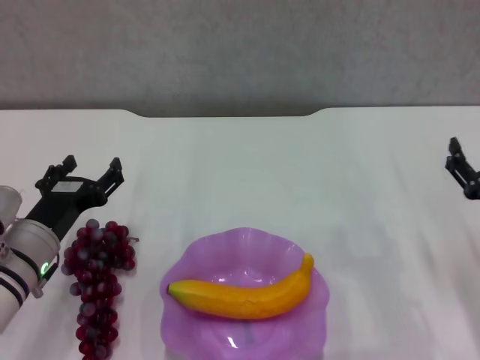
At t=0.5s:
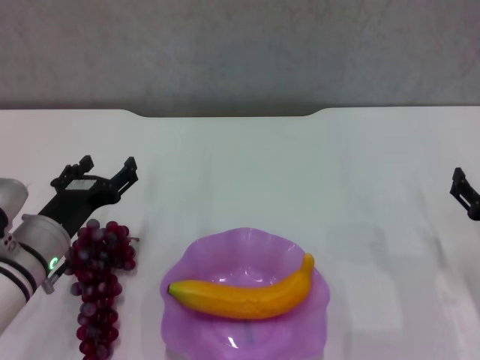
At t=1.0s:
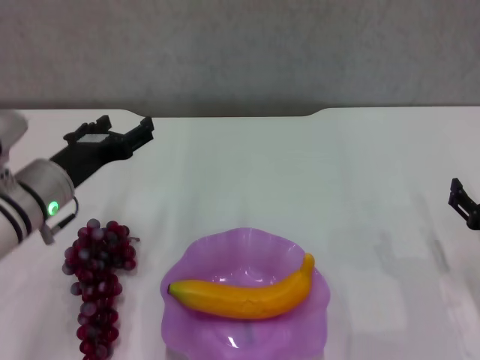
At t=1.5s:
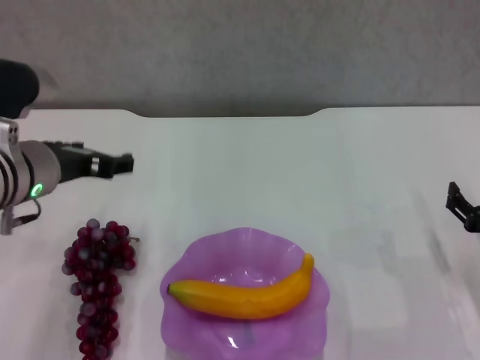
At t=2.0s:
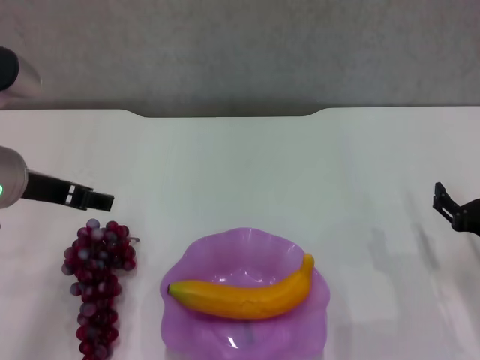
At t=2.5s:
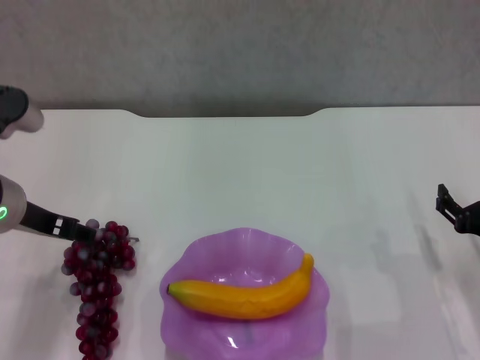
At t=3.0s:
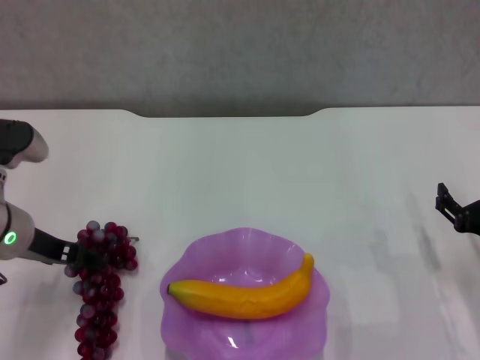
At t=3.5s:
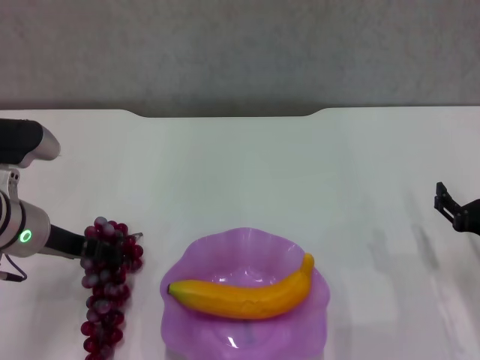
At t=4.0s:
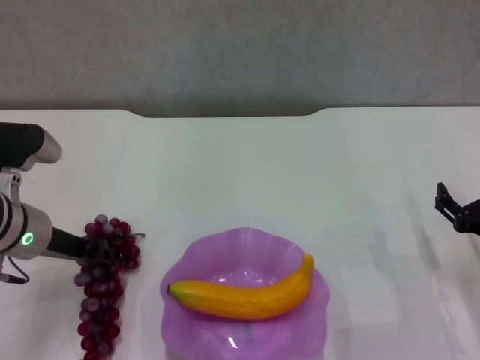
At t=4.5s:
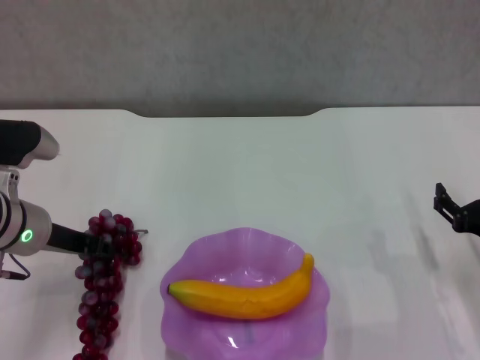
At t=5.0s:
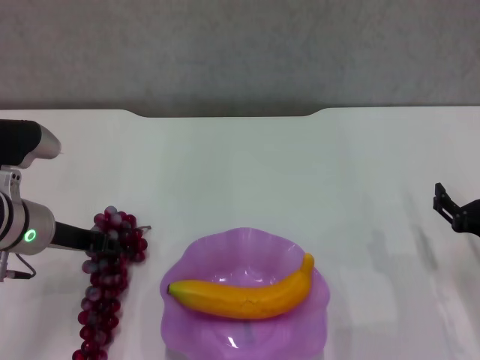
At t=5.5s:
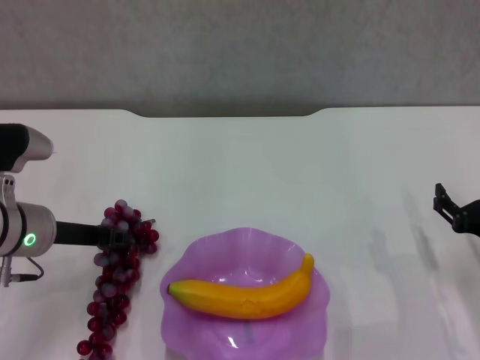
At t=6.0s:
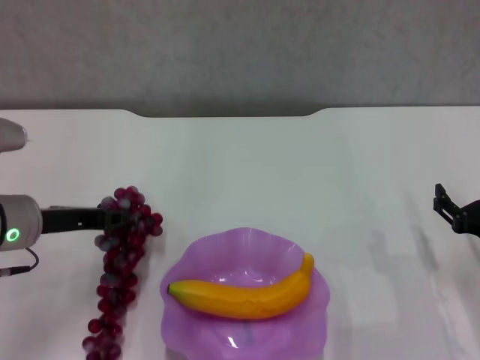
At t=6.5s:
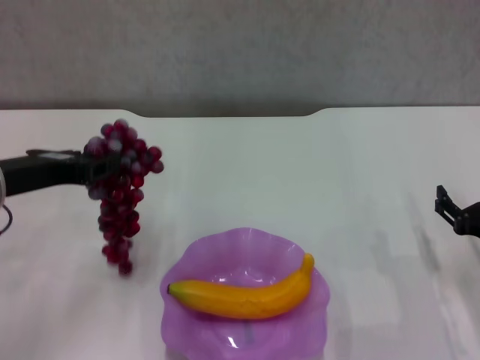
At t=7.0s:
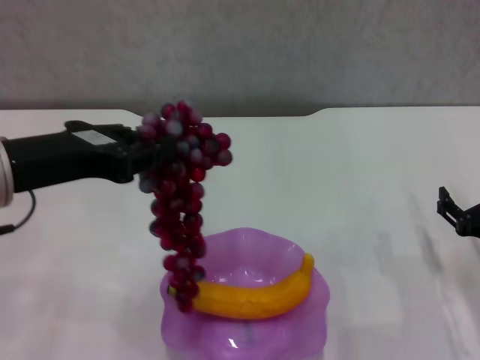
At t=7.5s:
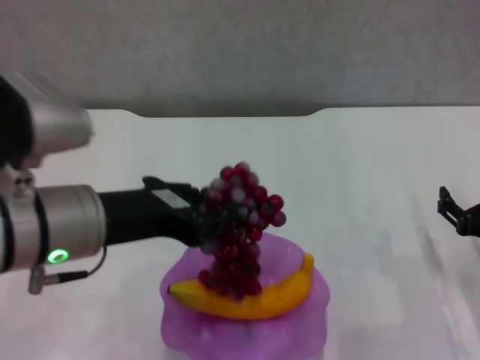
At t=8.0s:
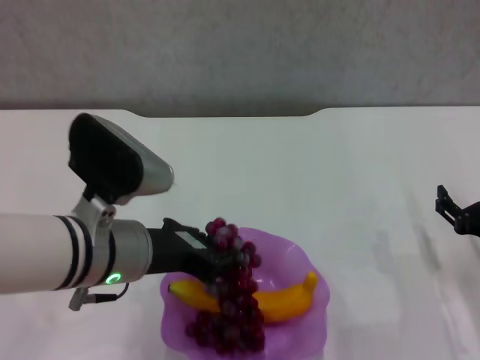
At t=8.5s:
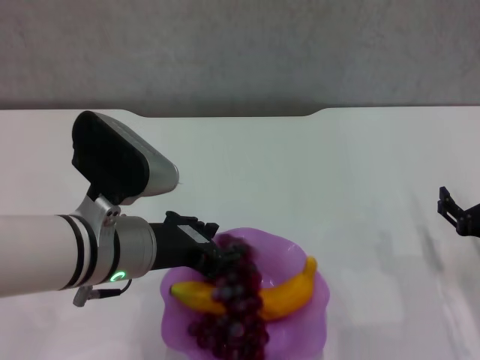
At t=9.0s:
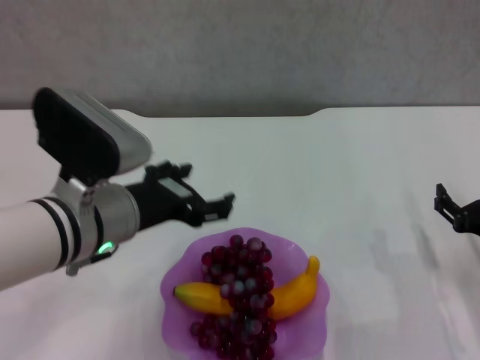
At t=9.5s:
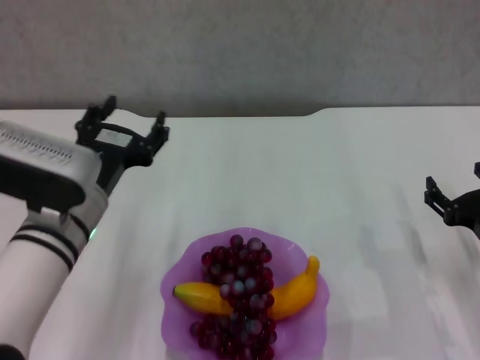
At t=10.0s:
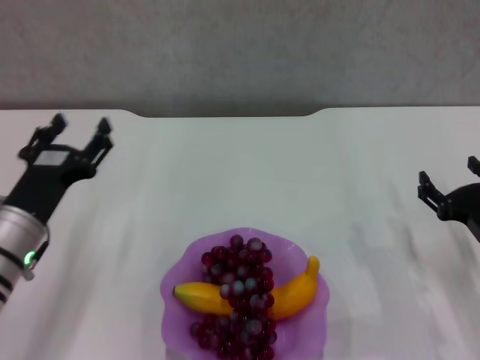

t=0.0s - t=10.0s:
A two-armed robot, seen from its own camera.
Step, t=0.0s - t=3.0s: Grasp the grape with left gripper.
Step, t=3.5s - t=8.5s: Place the grape in the purple plate with left gripper.
t=0.0s - t=2.0s: The left gripper is displaced upward by some 15 cm.
t=2.0s - t=4.0s: The left gripper is displaced downward by about 10 cm, and closes.
t=4.0s - t=6.0s: The left gripper closes.
t=6.0s - t=8.0s: The left gripper shifts approximately 10 cm to the right.
t=8.0s - t=10.0s: The left gripper is displaced to the left and downward by approximately 15 cm, and opens its fingers.
